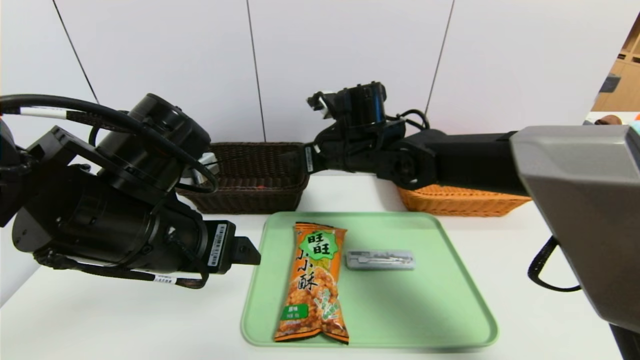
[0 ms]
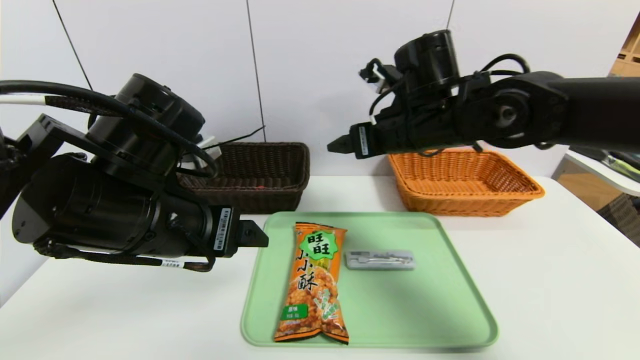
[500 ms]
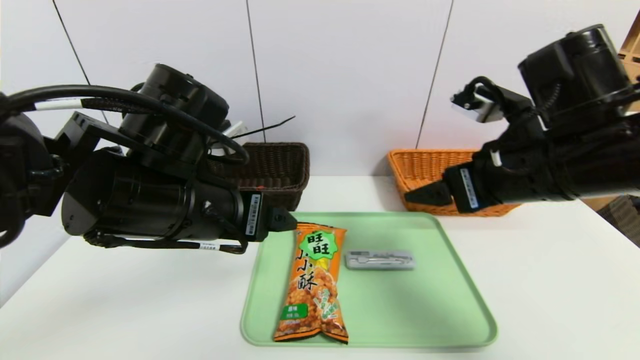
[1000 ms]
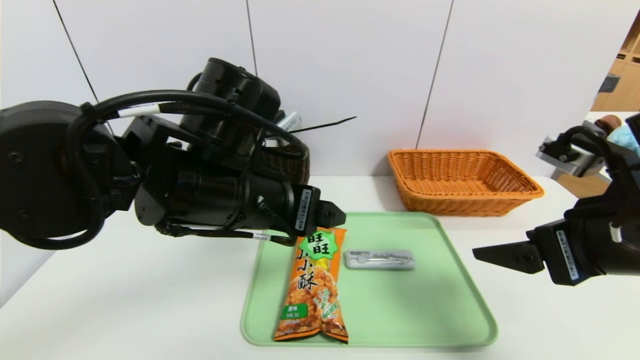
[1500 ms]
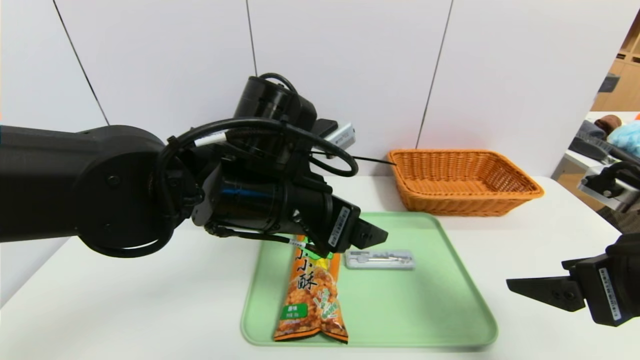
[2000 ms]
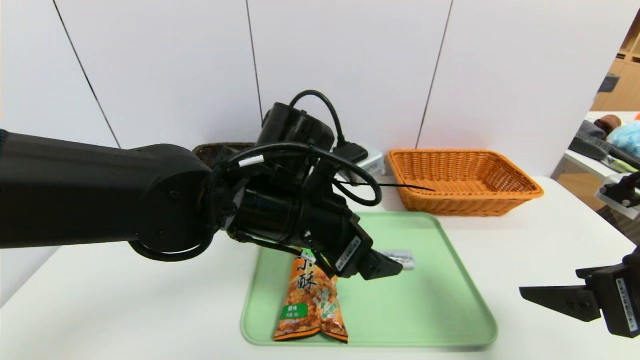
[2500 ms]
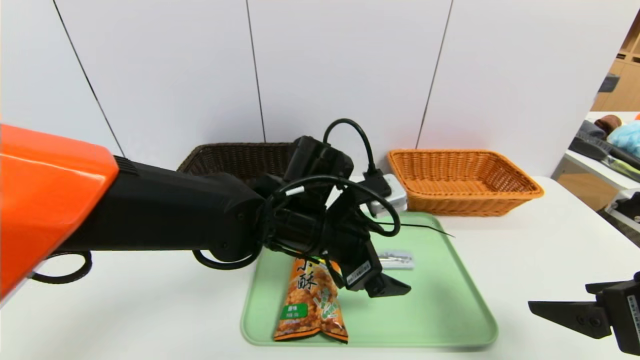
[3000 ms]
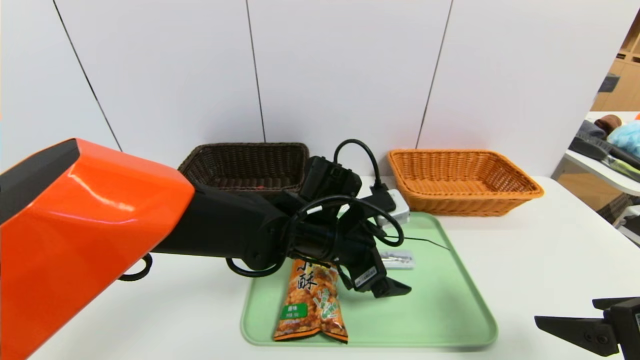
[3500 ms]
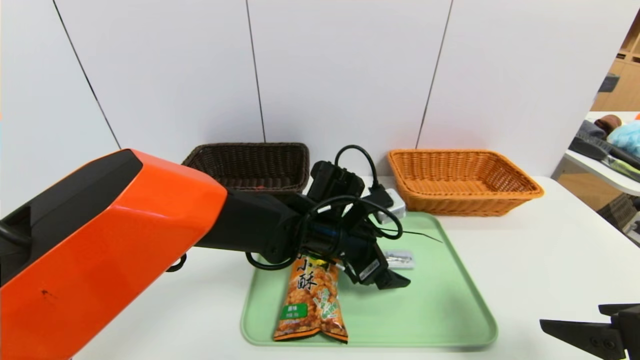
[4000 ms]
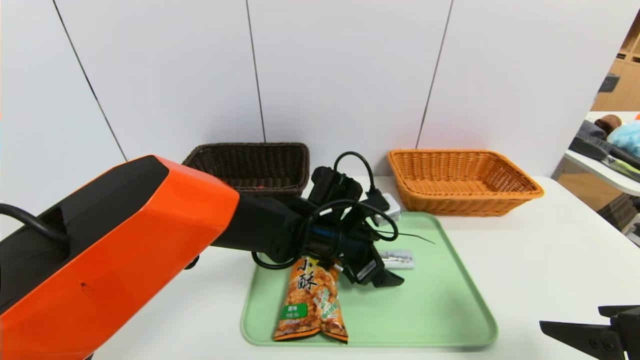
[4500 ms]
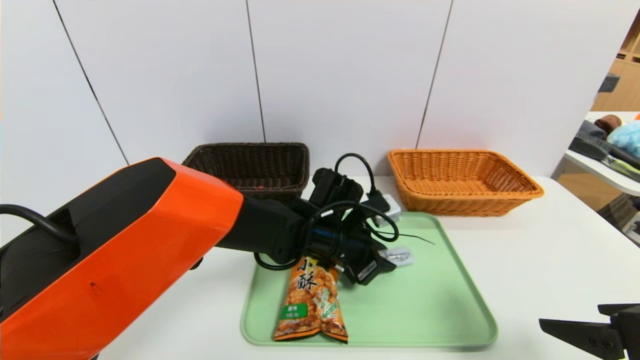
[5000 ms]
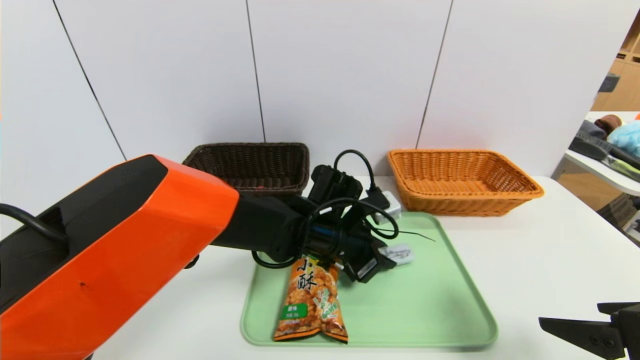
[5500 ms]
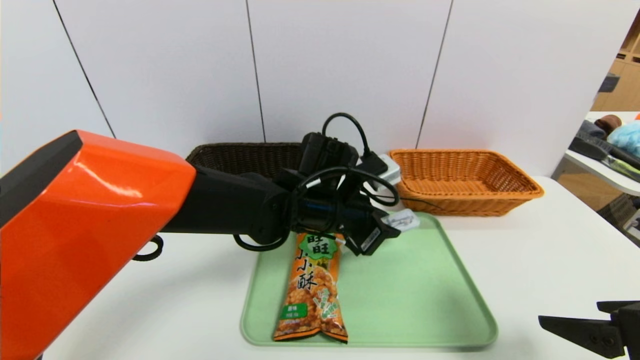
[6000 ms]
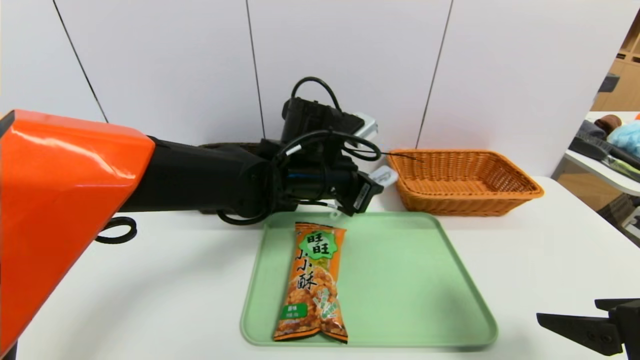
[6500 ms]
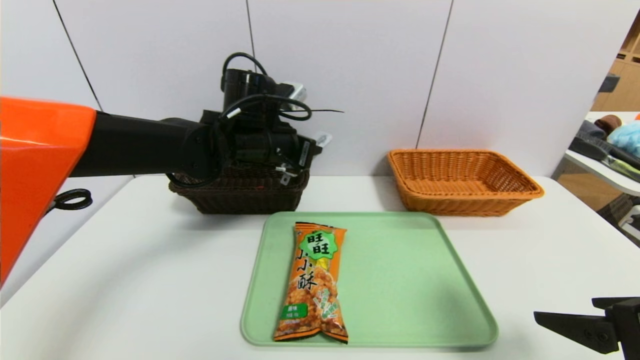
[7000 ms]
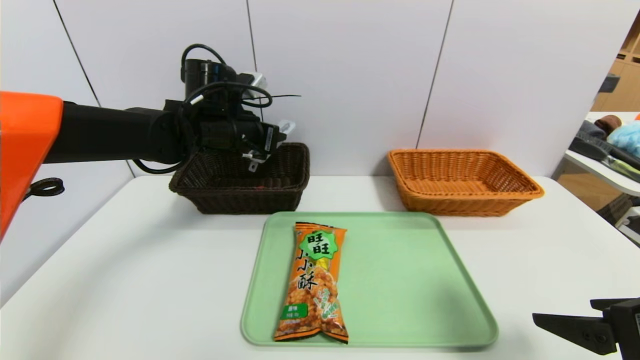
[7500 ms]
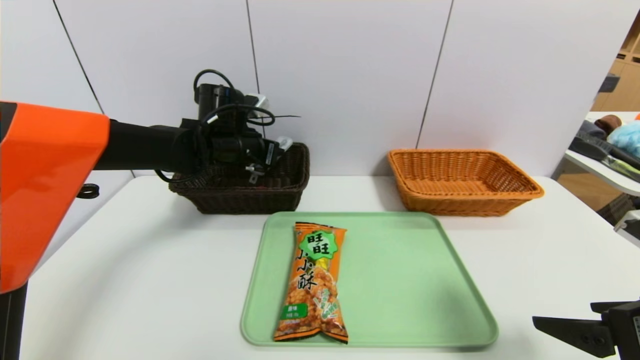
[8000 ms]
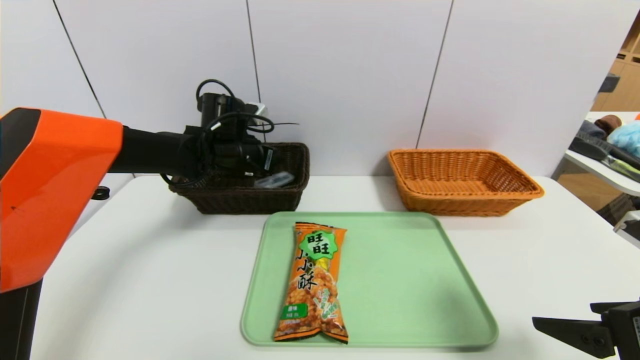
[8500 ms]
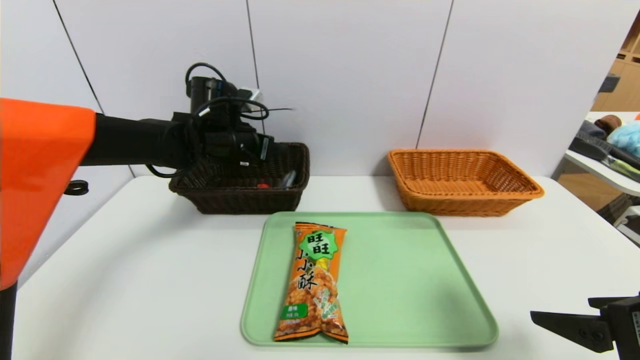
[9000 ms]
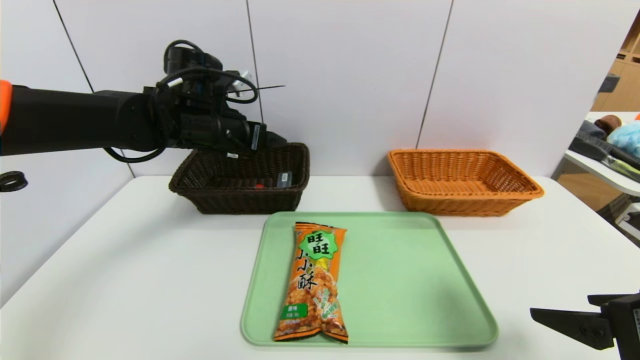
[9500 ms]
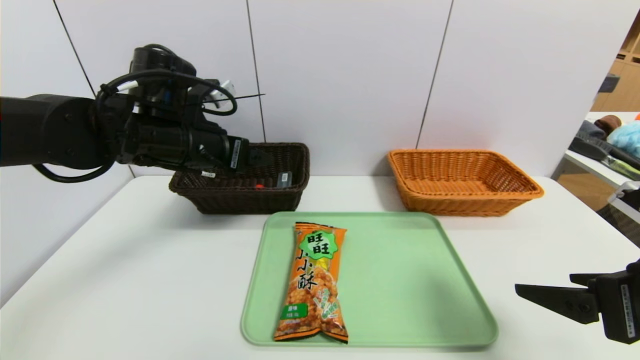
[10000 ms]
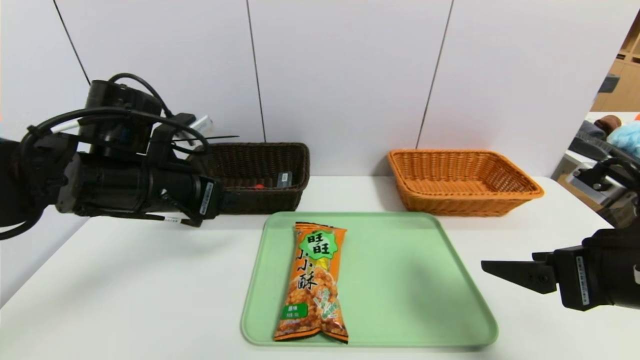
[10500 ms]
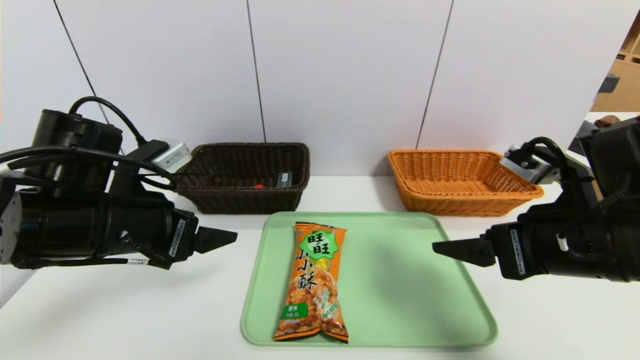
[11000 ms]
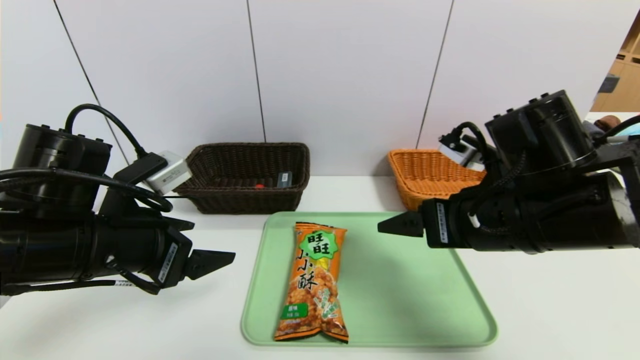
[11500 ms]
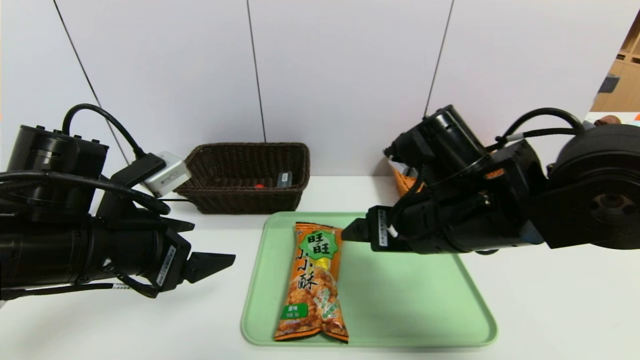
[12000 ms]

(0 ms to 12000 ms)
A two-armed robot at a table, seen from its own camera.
Task of the whole recording: place the food in the right basket with the right gripper, and place the non food items in the left basket with the left gripper.
Step, 0 ms - 9000 ms: Grasp the compass and put it in the left basket.
0 ms - 2000 ms: The left gripper shifts approximately 10 cm to the right, while the right gripper is displaced backward and to the right by approximately 35 cm.
2000 ms - 4000 ms: The left gripper shifts about 15 cm downward, forward and to the right.
4000 ms - 6000 ms: The left gripper closes its fingers.
6000 ms - 8000 ms: The left gripper shifts roughly 20 cm to the left and forward.
8000 ms - 10000 ms: The left gripper heads backward and upward, covering roughly 10 cm, and opens.
10000 ms - 12000 ms: The right gripper shifts approximately 20 cm to the left and forward, while the left gripper heads backward, covering roughly 15 cm.

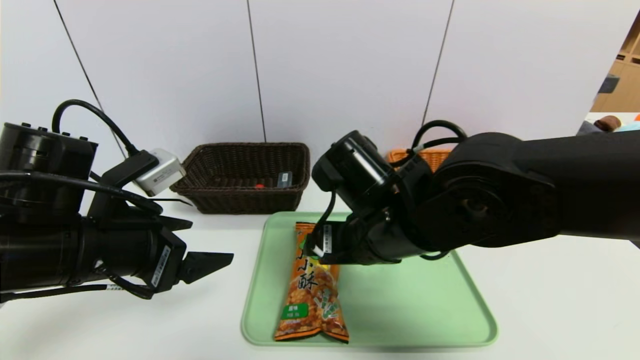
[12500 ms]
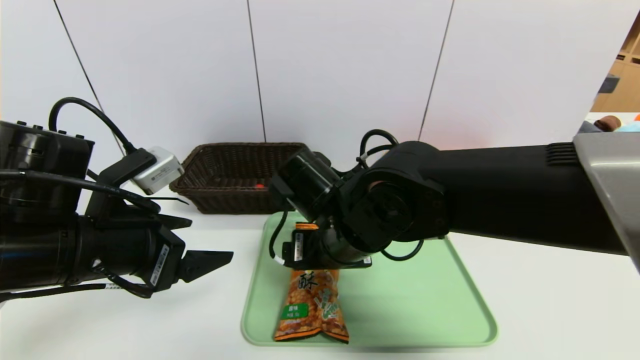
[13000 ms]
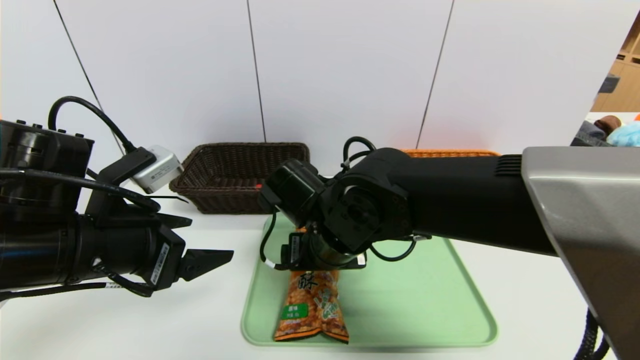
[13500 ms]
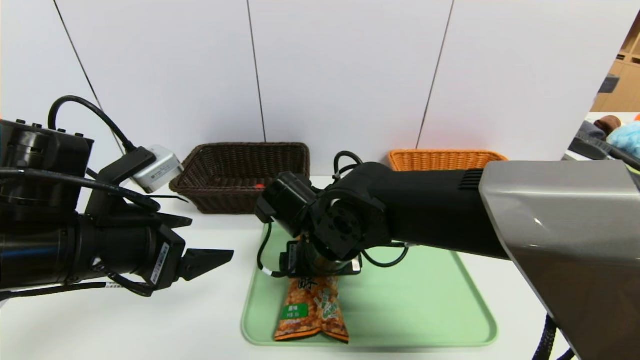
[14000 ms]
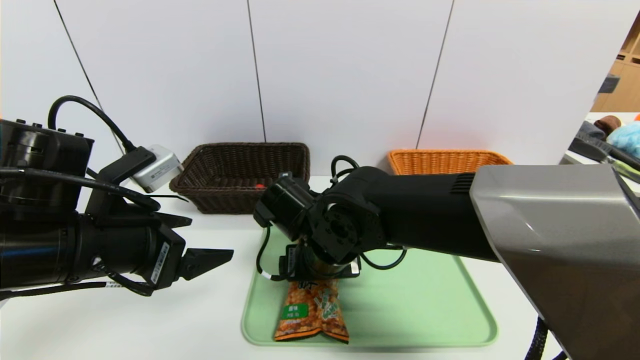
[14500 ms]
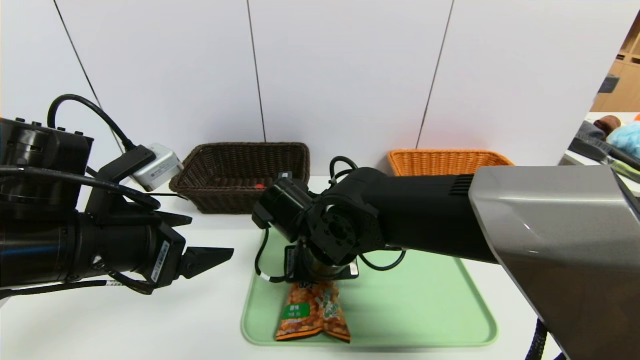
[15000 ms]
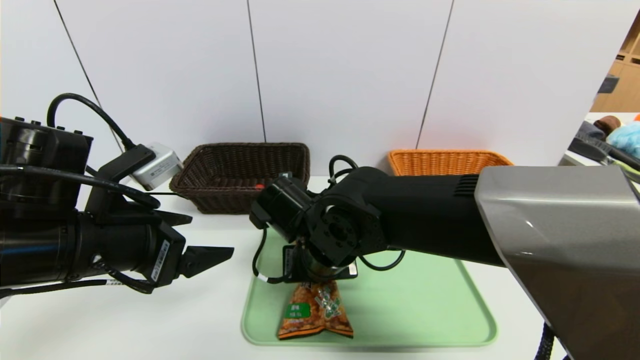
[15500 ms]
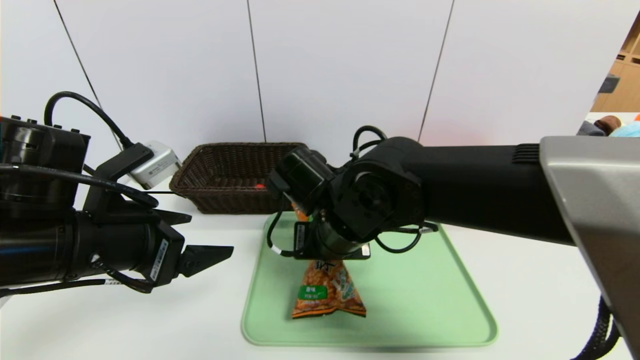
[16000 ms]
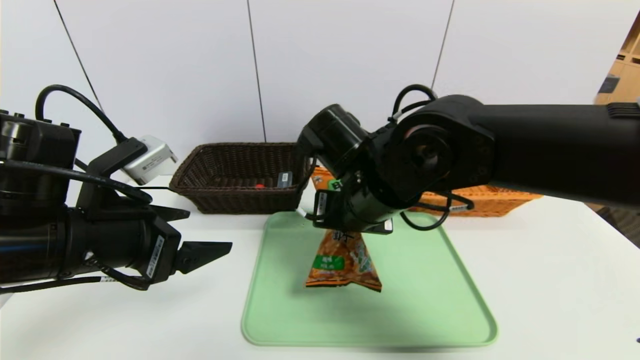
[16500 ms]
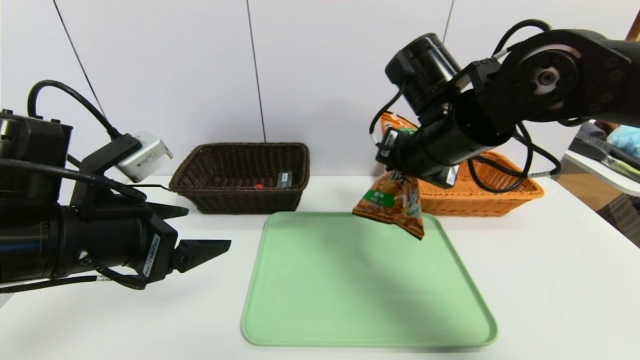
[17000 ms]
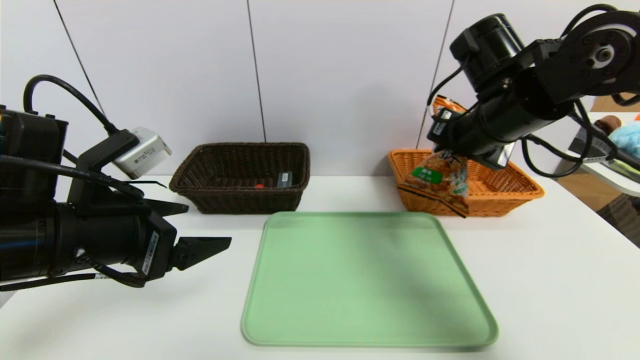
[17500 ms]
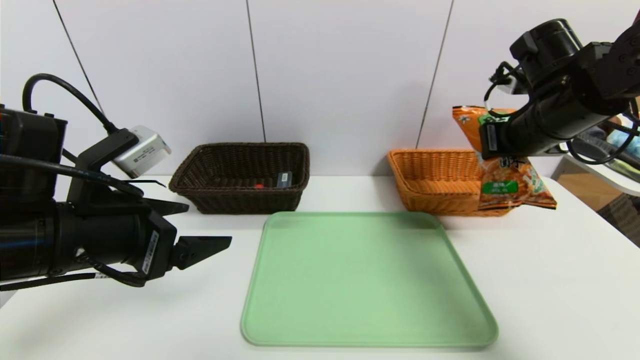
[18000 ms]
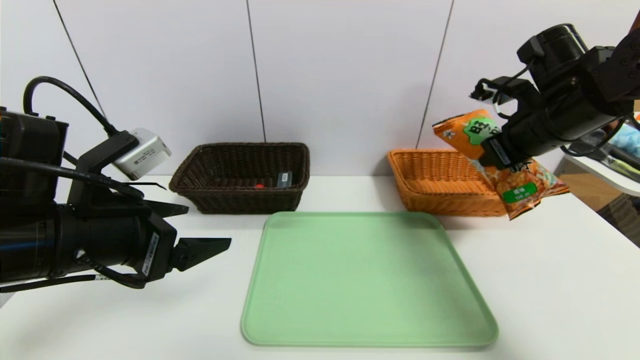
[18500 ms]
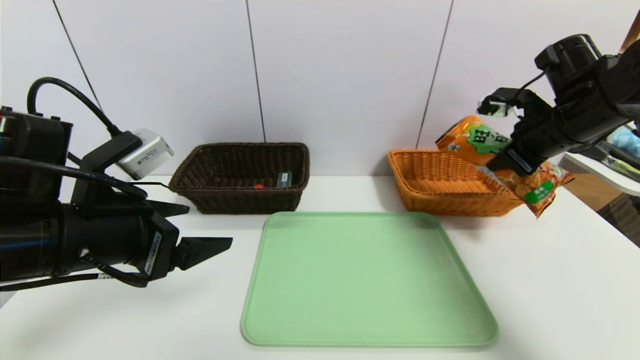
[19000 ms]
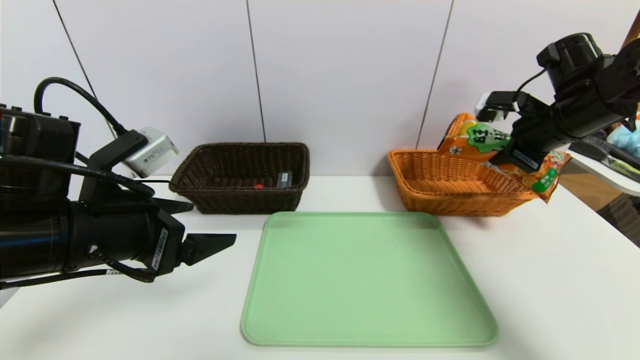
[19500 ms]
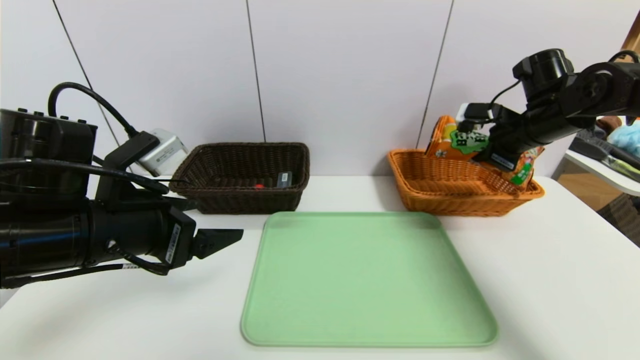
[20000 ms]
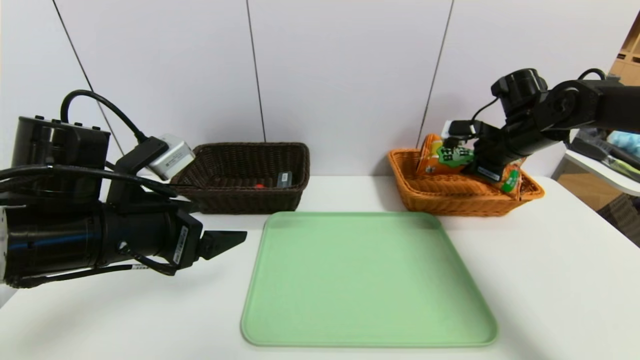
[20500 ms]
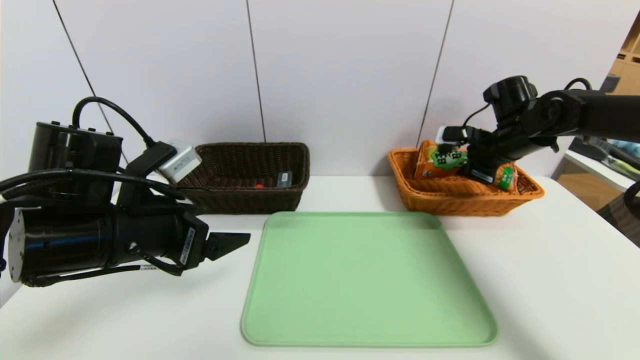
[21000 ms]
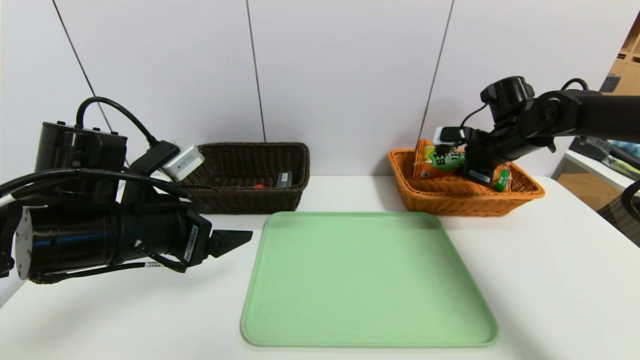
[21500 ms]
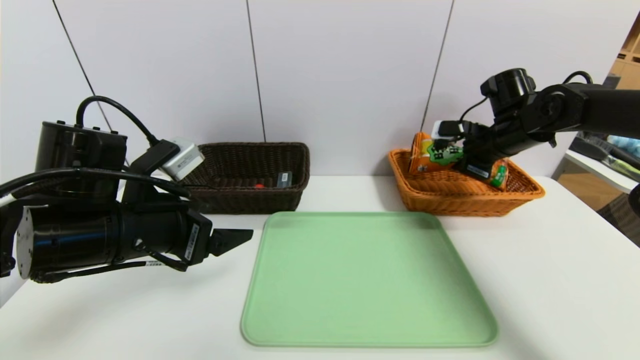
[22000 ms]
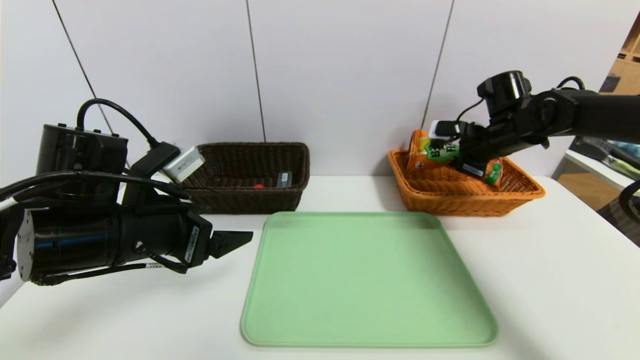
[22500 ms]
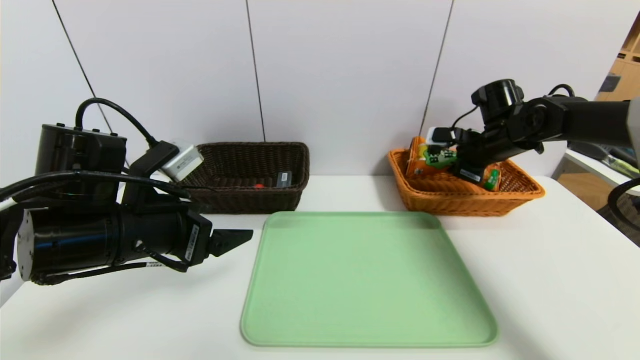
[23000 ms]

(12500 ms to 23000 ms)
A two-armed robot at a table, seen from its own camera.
Task of the whole recording: place the food in the right basket with the right gripper, and place the non food items in the left basket with the left gripper.
12500 ms - 14500 ms: The right gripper travels to the left and downward by approximately 10 cm.
14500 ms - 16500 ms: The right gripper moves upward and to the right, about 10 cm, and closes up.
16500 ms - 19000 ms: The right gripper shifts some 25 cm to the right.
19000 ms - 21000 ms: The right gripper heads forward and downward, covering roughly 10 cm.
21000 ms - 23000 ms: The grippers move only a little.
